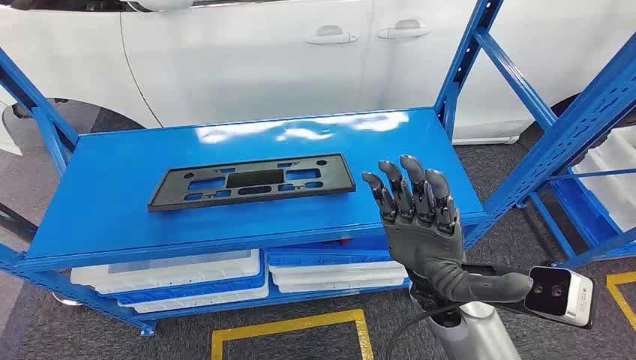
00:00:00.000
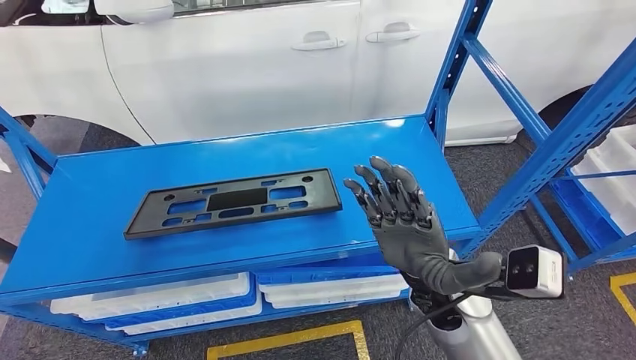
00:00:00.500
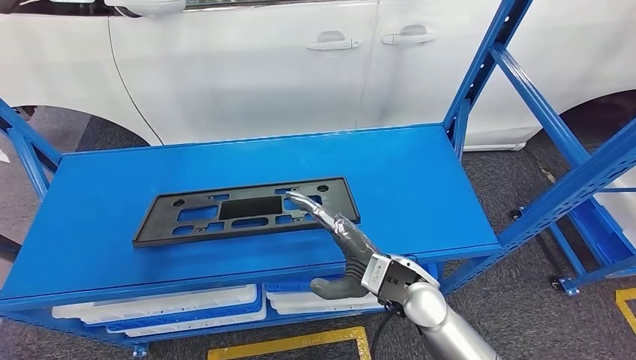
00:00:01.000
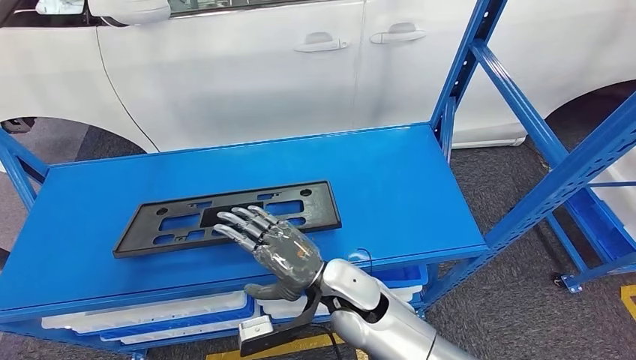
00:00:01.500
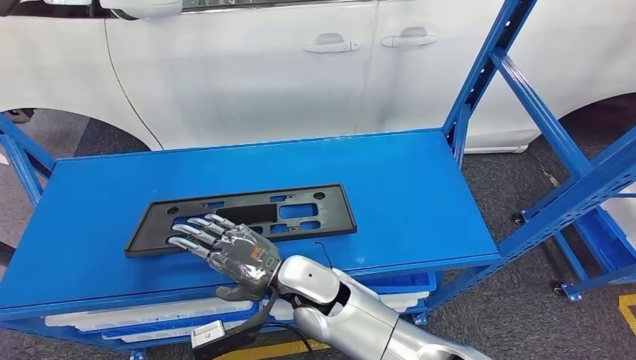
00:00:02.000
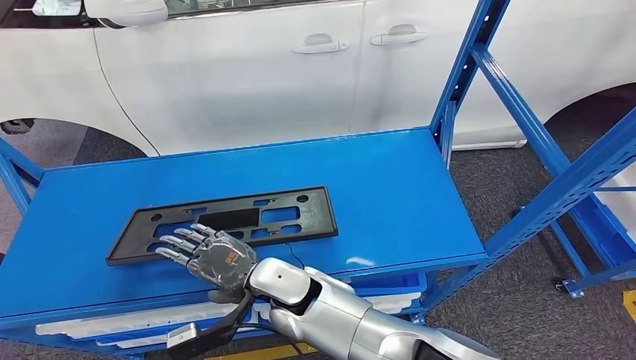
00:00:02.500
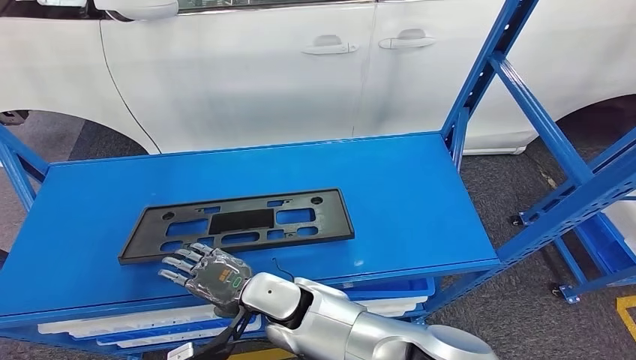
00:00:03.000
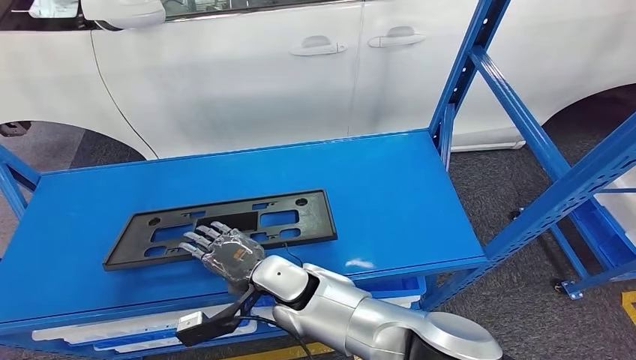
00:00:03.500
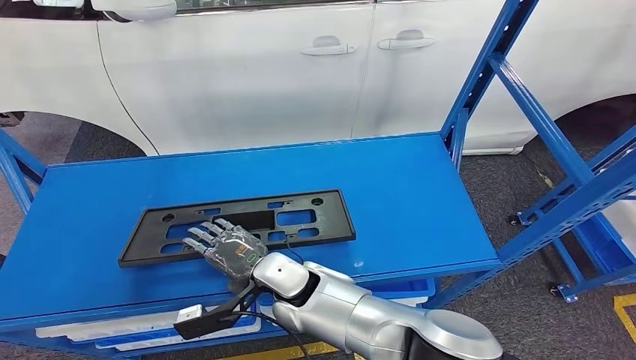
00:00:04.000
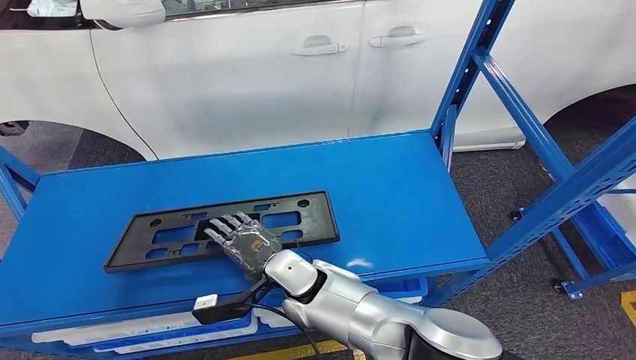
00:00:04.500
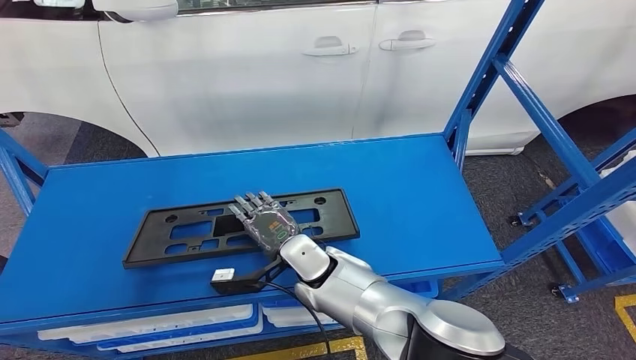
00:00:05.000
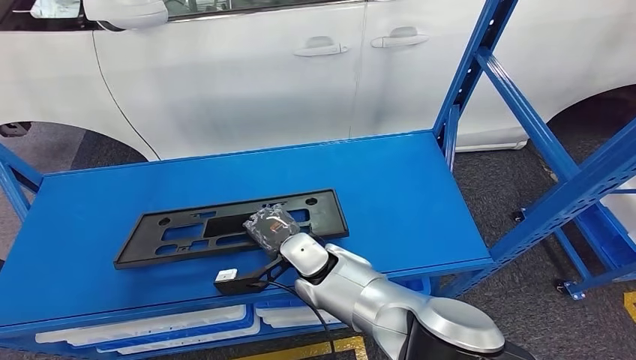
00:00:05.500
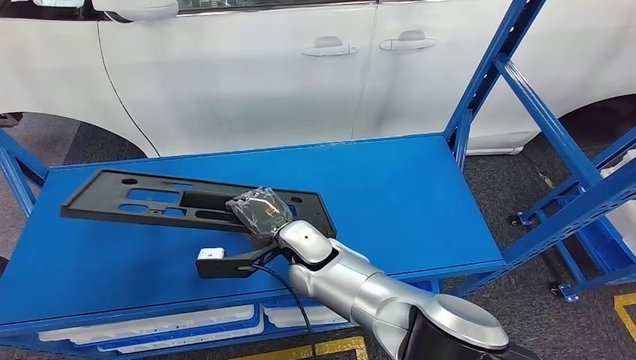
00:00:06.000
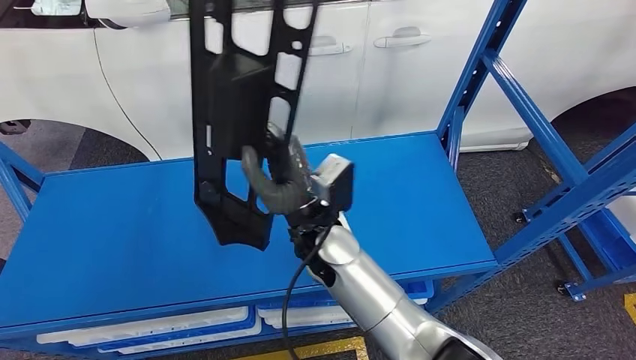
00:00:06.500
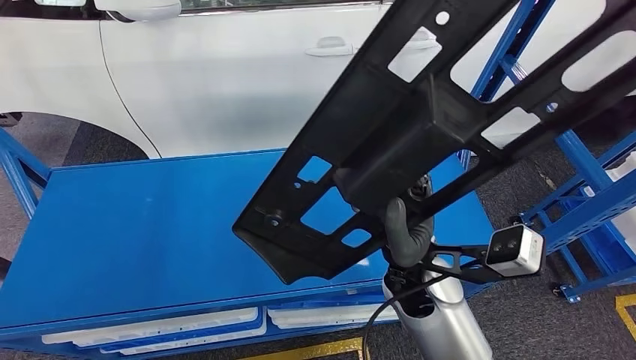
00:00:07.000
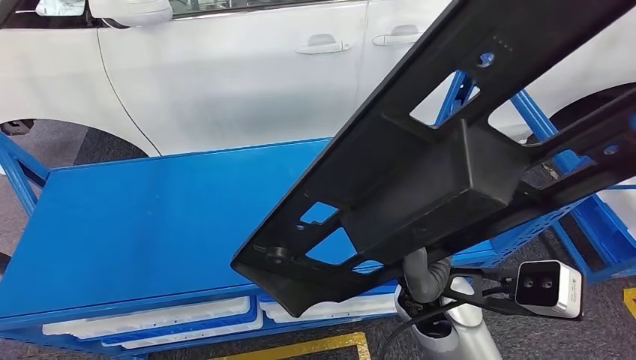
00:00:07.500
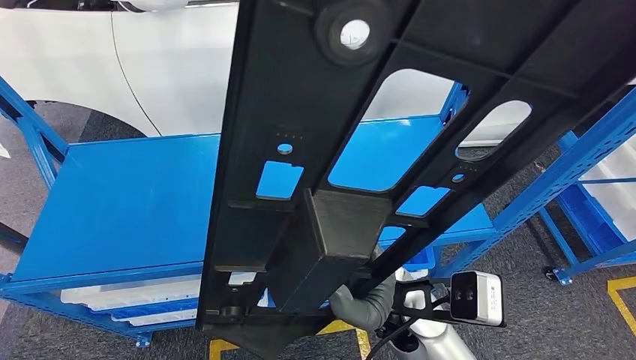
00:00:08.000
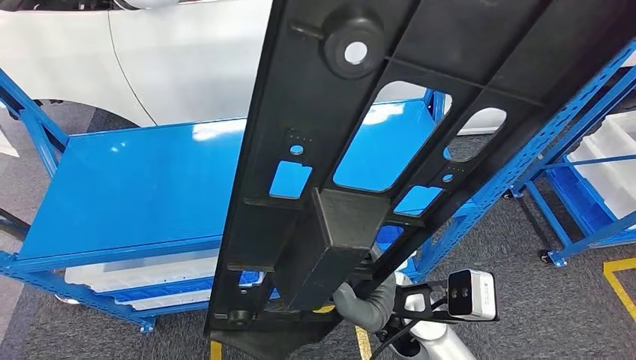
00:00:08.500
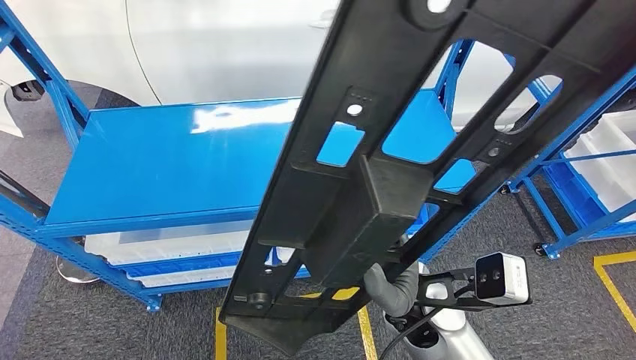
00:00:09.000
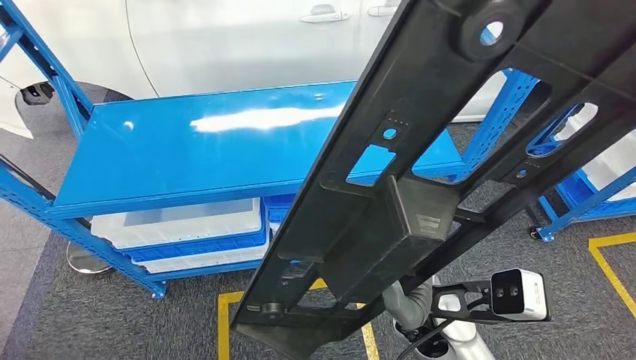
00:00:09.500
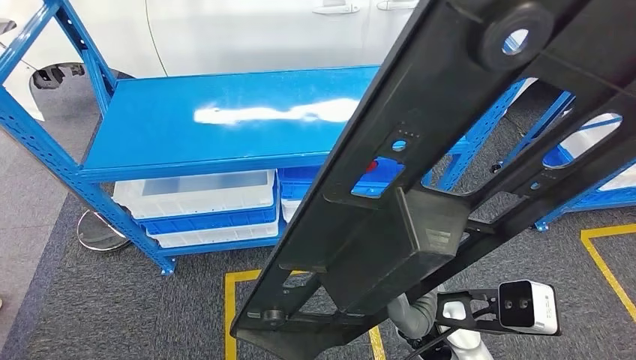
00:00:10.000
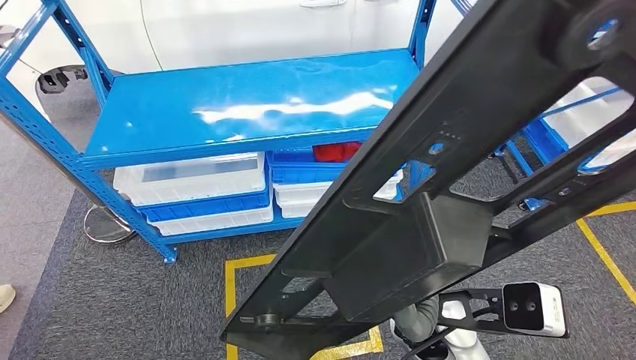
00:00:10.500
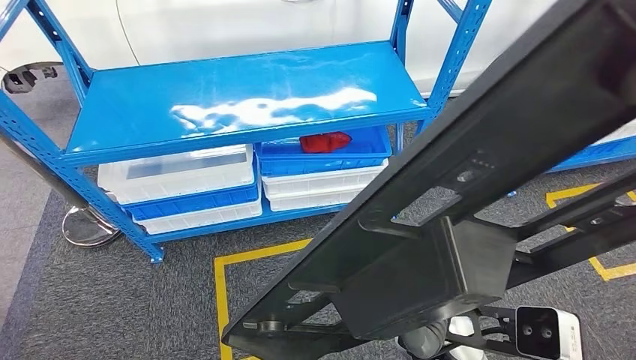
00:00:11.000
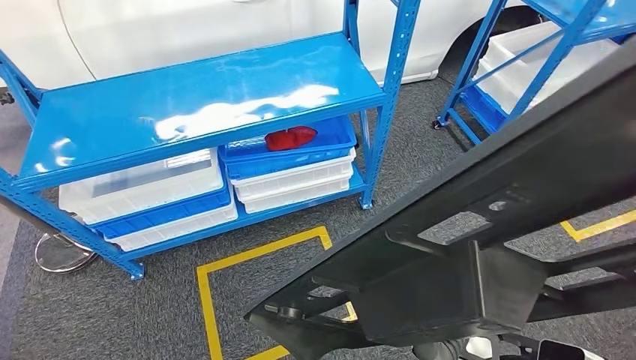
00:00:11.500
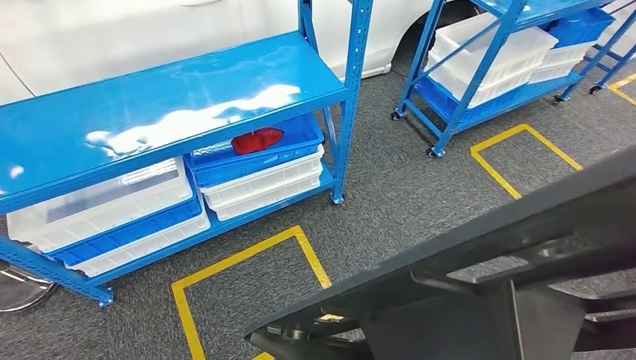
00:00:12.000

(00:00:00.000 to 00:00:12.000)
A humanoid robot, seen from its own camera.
Step, 00:00:00.000 - 00:00:06.500: Pick up the small component from the shelf.
00:00:04.000 - 00:00:06.000: The right hand changes place by some 5 cm.

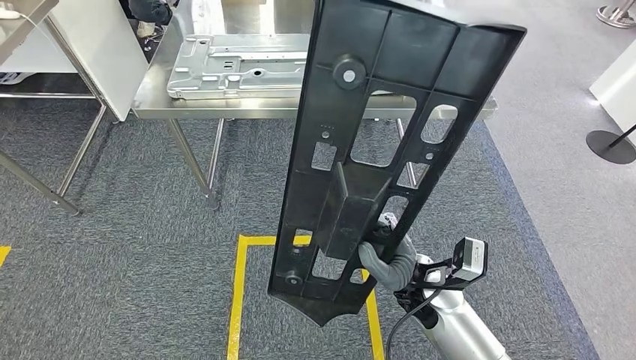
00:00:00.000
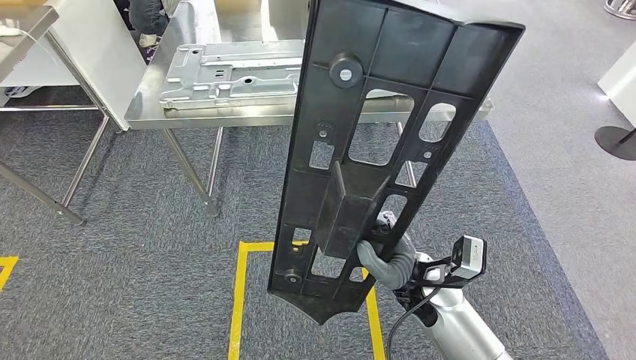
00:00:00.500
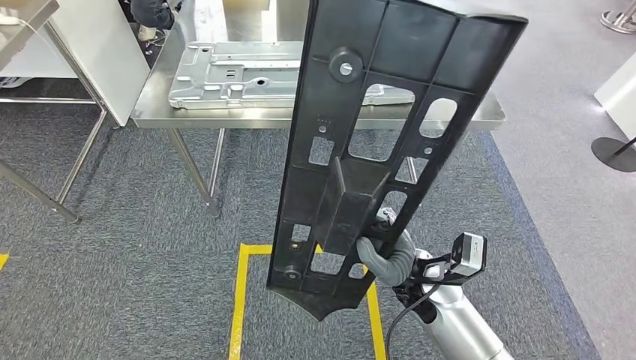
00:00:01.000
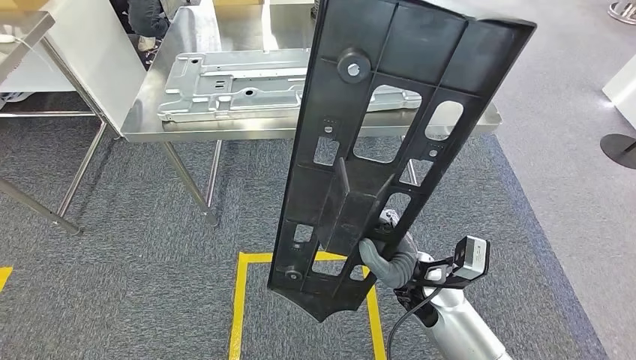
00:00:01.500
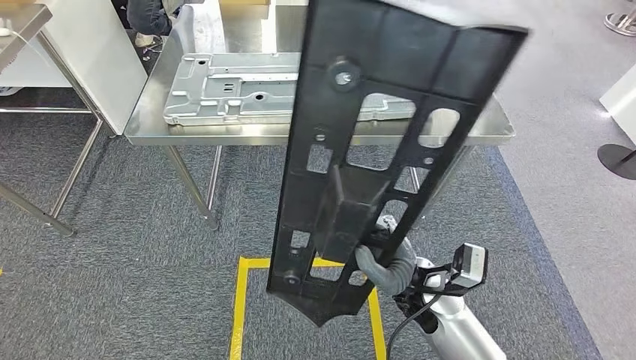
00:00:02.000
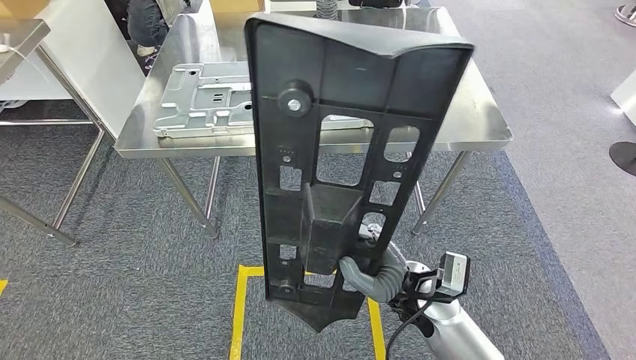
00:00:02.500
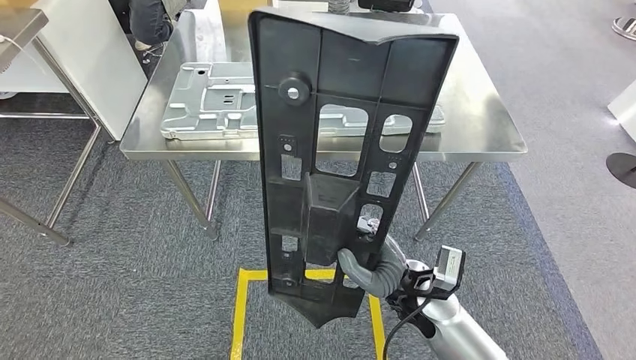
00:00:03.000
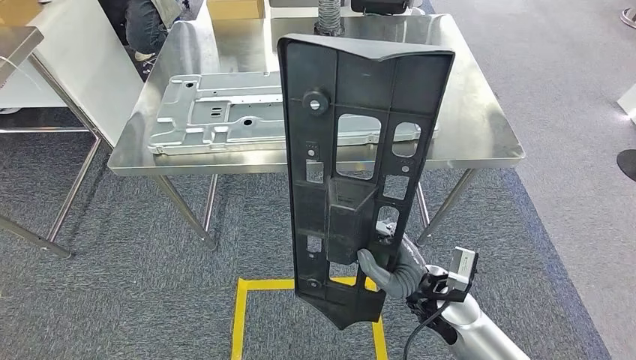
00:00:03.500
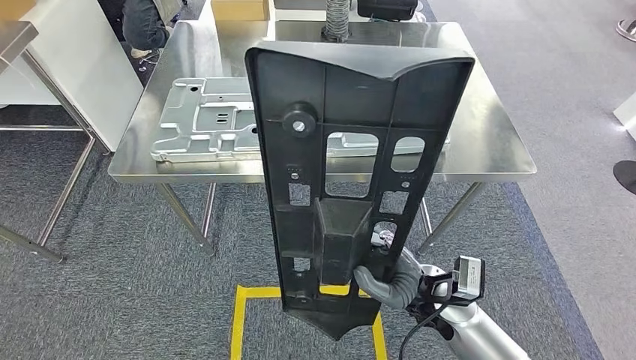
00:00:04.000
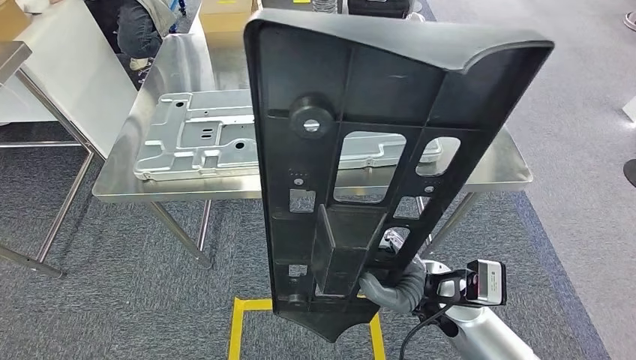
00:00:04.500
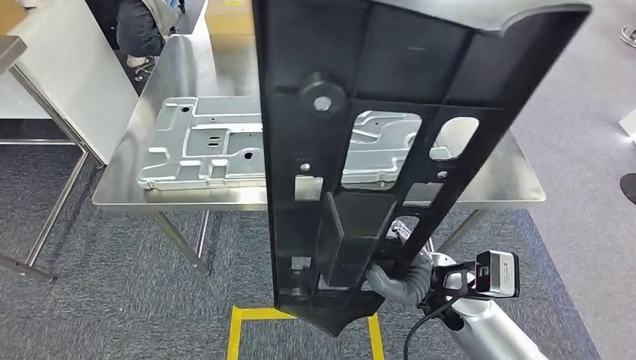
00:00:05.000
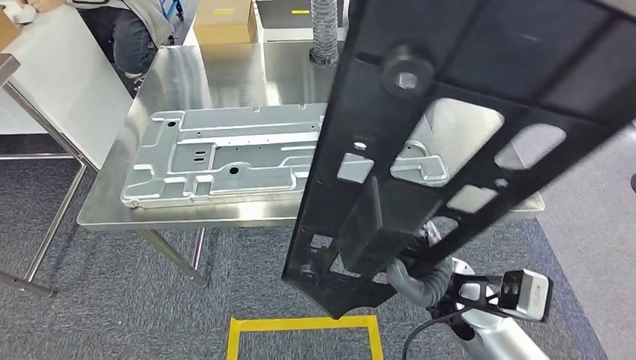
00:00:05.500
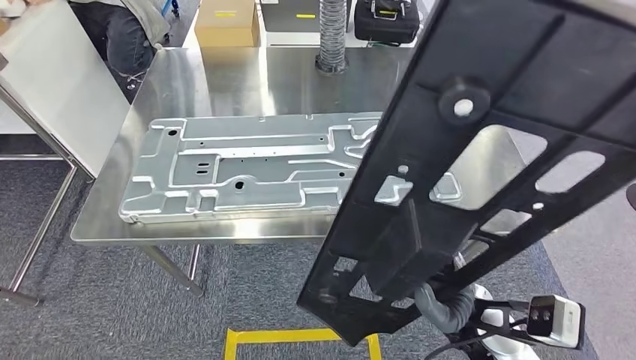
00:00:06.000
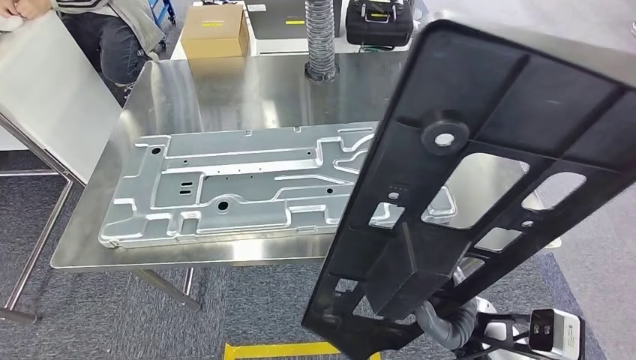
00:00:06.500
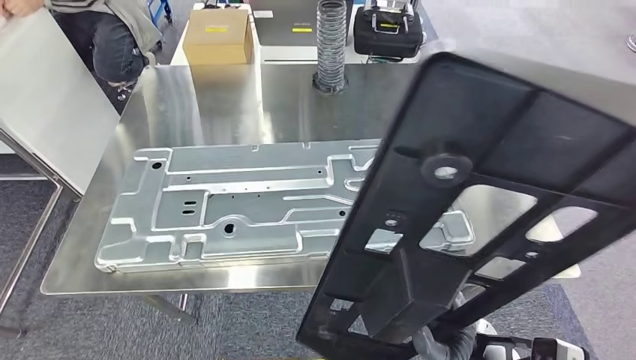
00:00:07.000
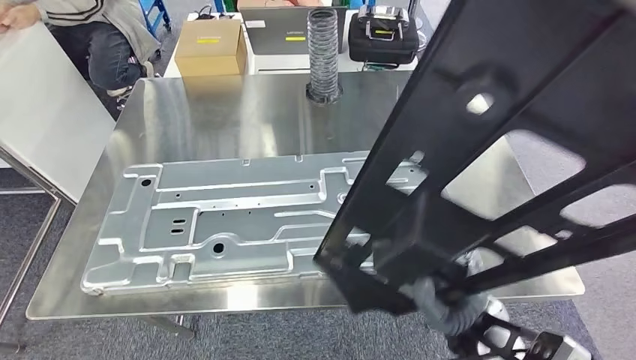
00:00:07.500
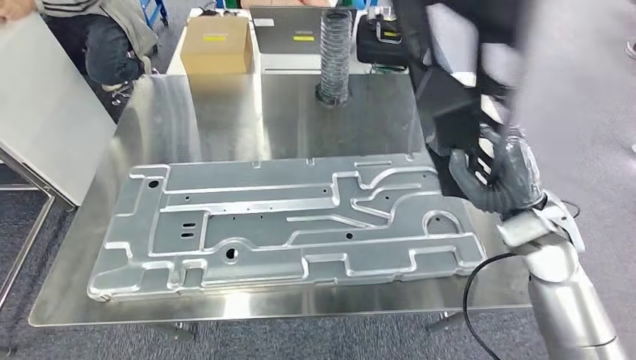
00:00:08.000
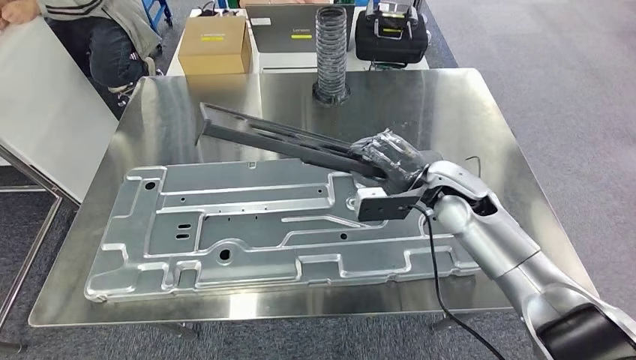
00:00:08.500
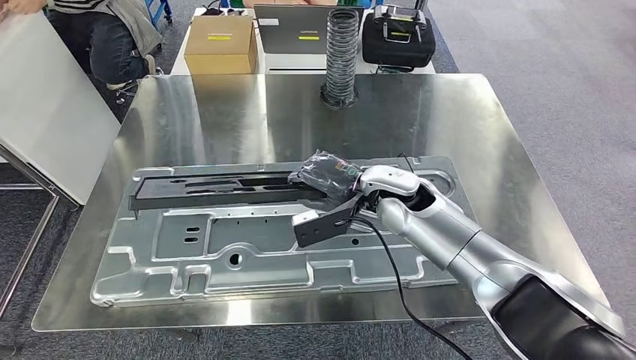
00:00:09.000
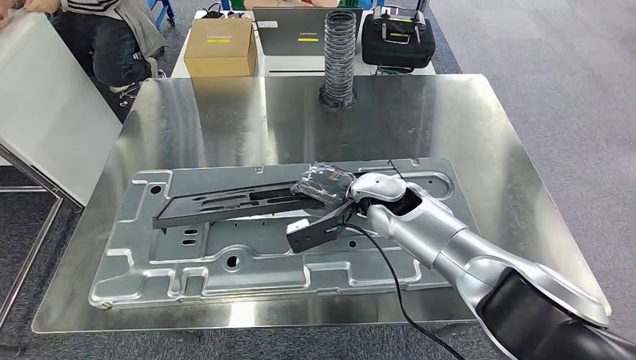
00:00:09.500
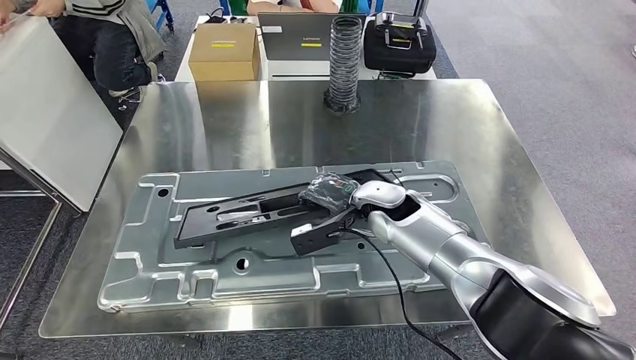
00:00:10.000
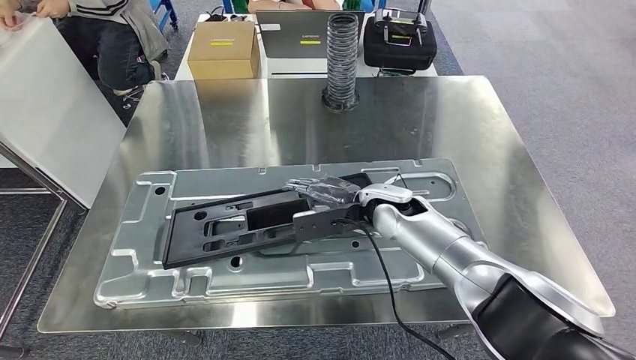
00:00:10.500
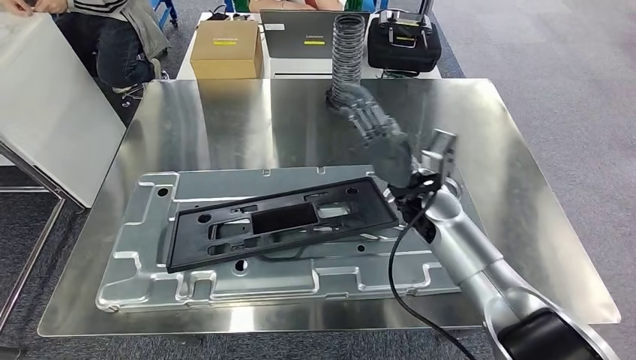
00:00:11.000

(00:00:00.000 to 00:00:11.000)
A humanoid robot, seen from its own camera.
Step, 00:00:00.000 - 00:00:06.500: Move the small component to the workbench.
